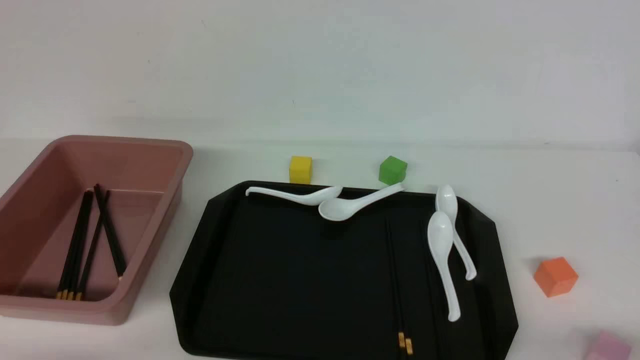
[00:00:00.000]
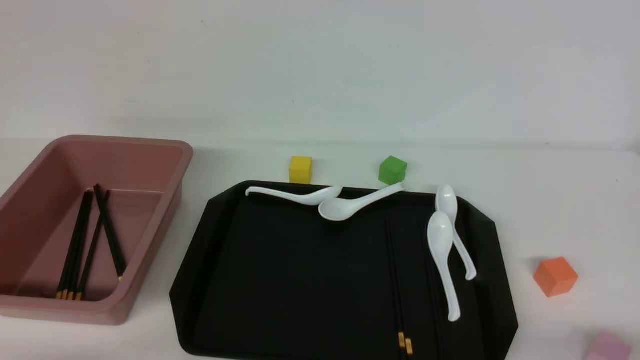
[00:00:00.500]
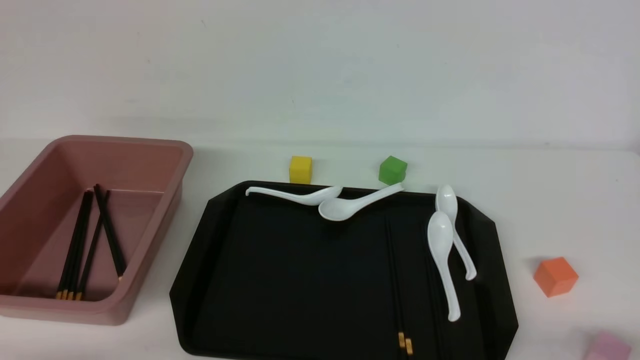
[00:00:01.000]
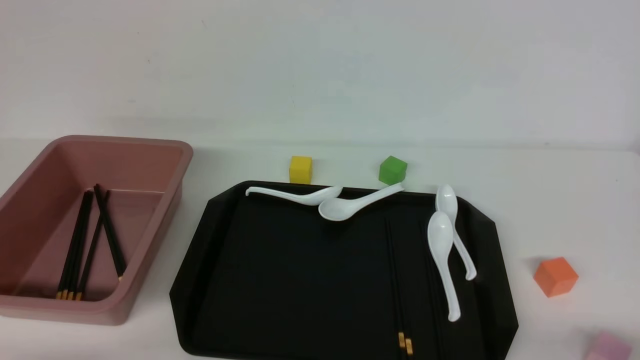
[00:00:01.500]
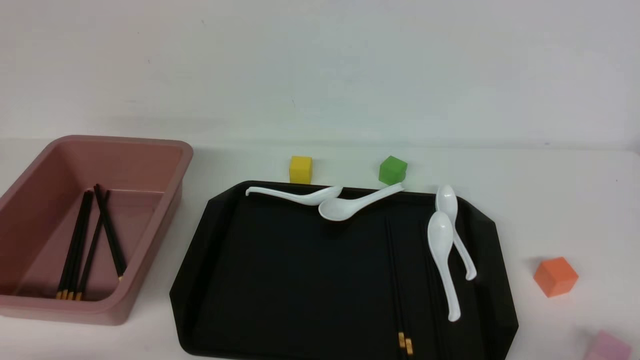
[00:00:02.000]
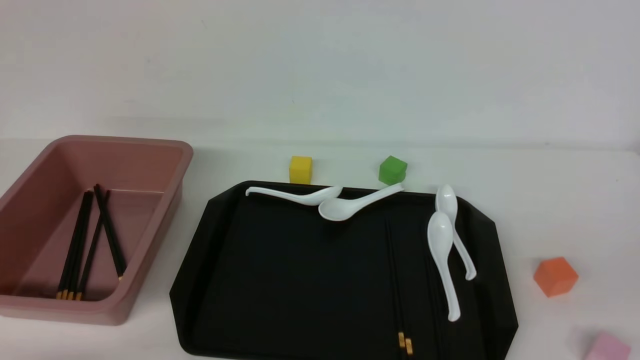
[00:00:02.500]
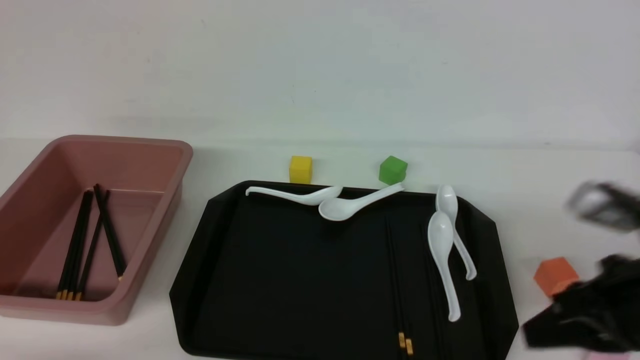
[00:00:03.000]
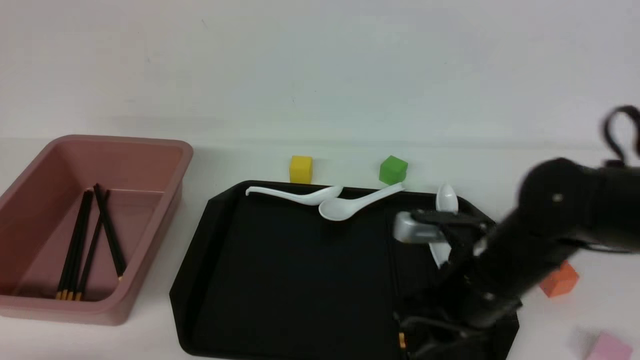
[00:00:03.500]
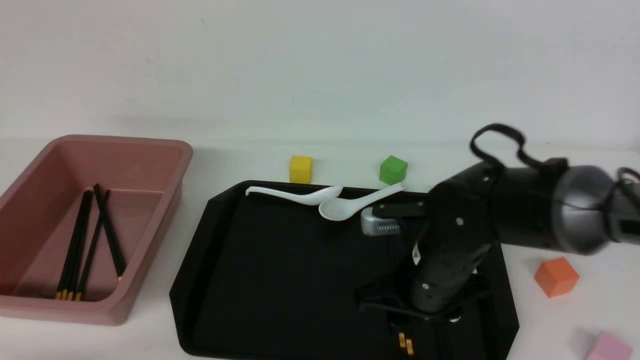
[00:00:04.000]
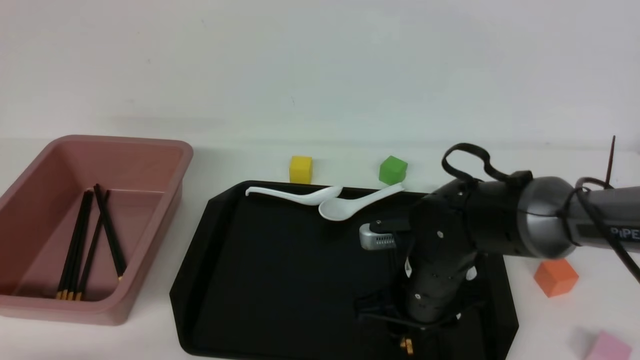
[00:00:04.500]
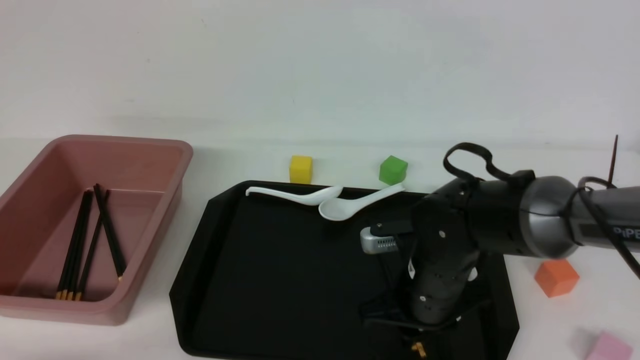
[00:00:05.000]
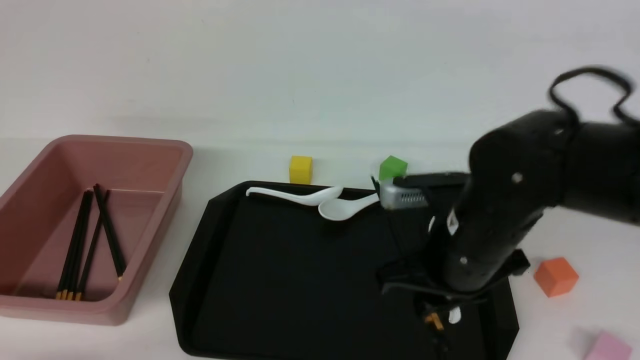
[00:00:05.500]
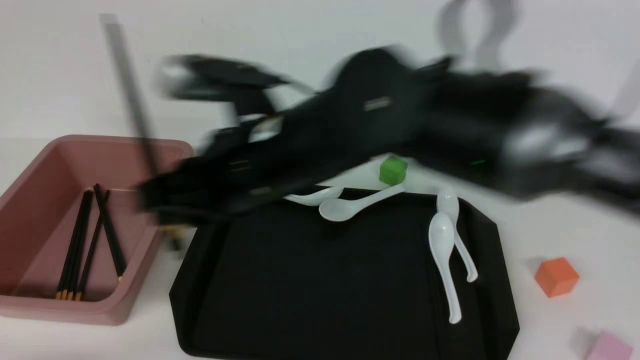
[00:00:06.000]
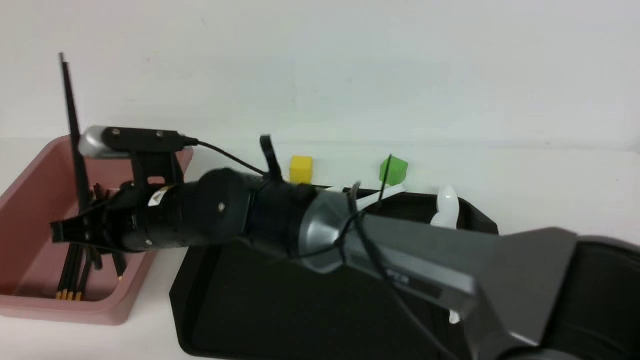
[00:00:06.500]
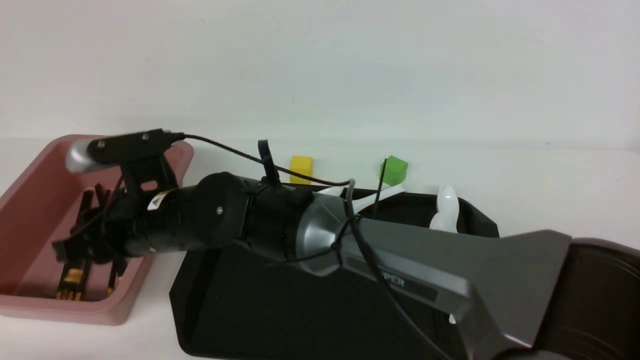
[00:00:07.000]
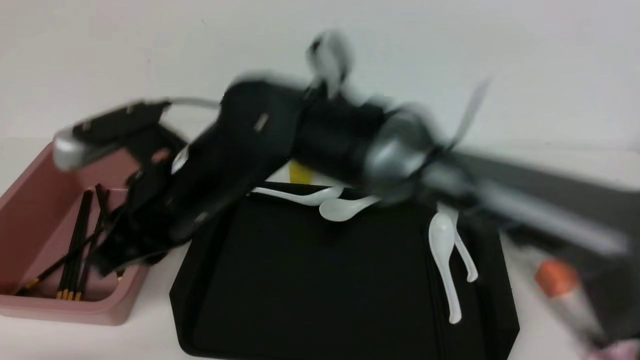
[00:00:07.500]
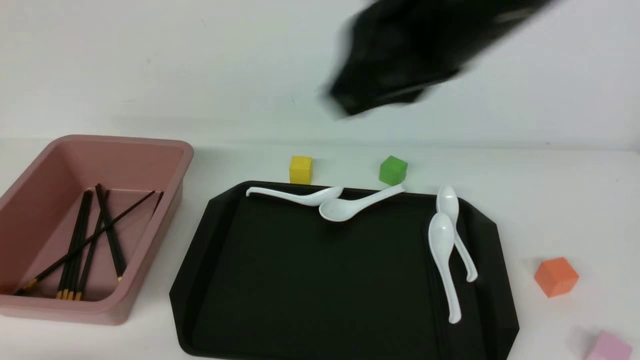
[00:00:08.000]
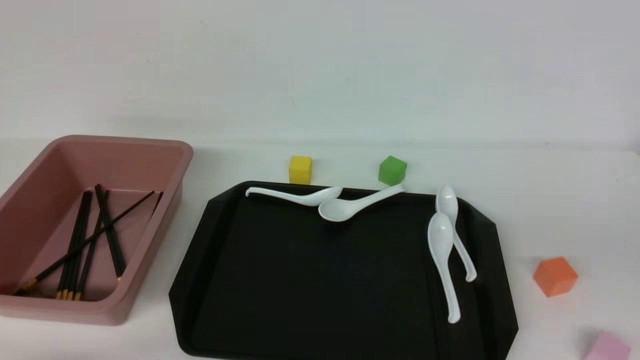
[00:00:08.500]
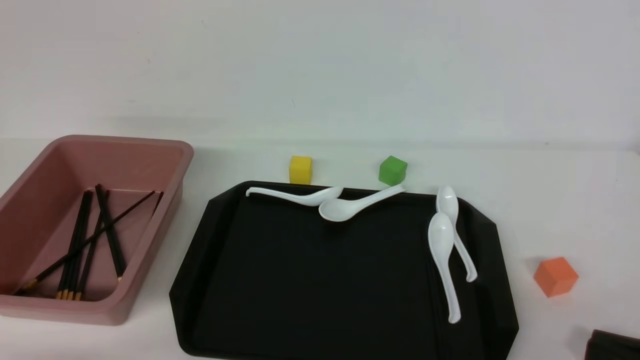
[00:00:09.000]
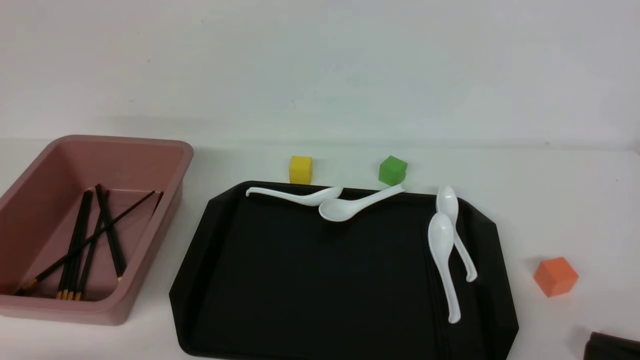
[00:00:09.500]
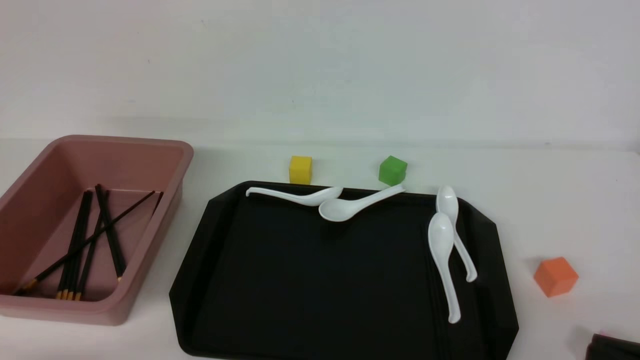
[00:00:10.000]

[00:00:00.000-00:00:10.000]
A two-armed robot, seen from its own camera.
Step, 00:00:00.000 to 00:00:05.500: use the right arm to grab a pair of chopsticks.
Step, 00:00:06.000 to 00:00:07.000: use the right arm to put the chopsticks into the lunch box.
00:00:02.000 to 00:00:04.000: The right gripper goes some 30 cm forward and to the left, and closes and opens again.
00:00:04.000 to 00:00:06.000: The right gripper is displaced to the left and upward by some 20 cm, and closes its fingers.
00:00:06.000 to 00:00:08.000: The right gripper shifts about 25 cm upward, to the right and backward, and closes.
00:00:08.000 to 00:00:10.000: The right gripper is displaced downward, to the right and backward by about 30 cm.

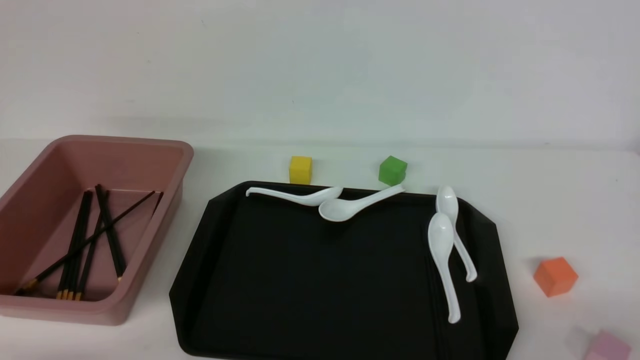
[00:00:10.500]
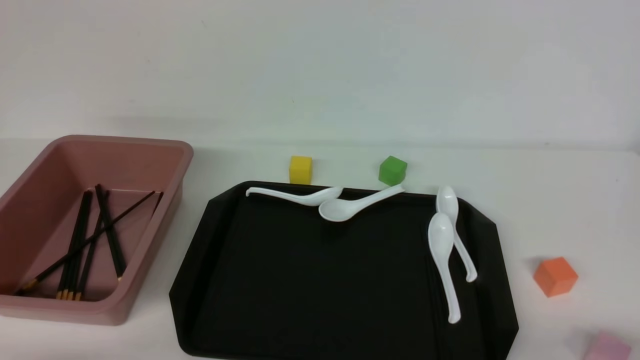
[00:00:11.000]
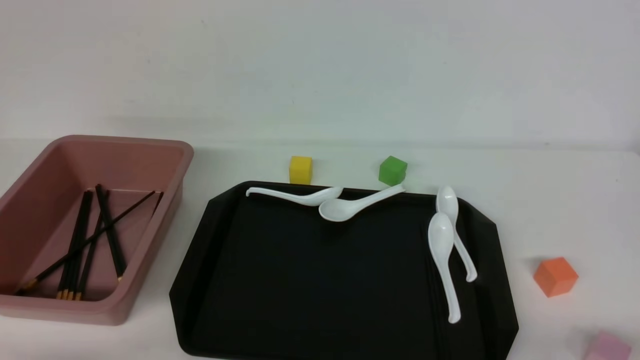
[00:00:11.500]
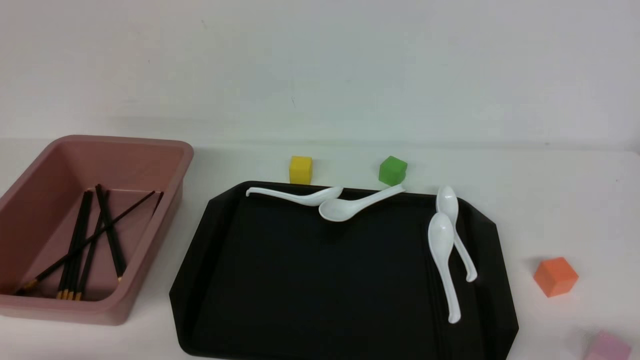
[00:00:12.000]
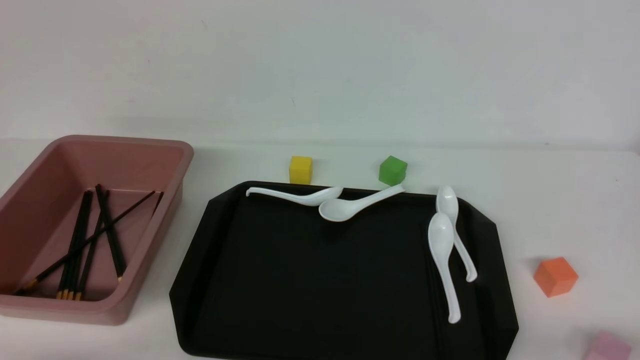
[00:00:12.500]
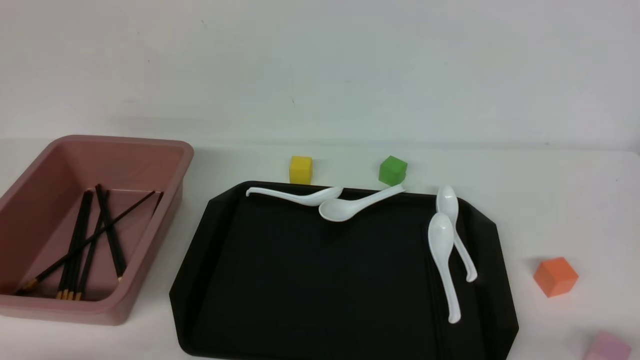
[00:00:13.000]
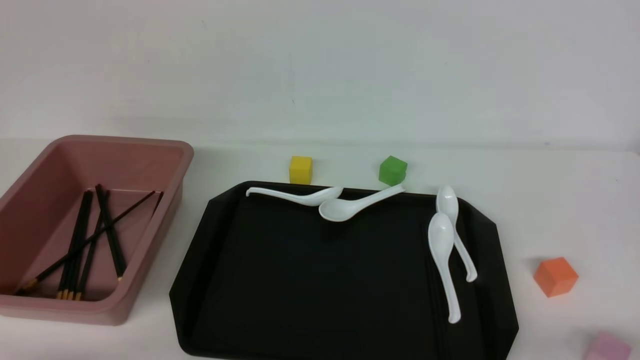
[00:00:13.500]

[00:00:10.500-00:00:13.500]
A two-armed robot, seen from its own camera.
00:00:12.000 to 00:00:13.500: The two grippers keep their place.

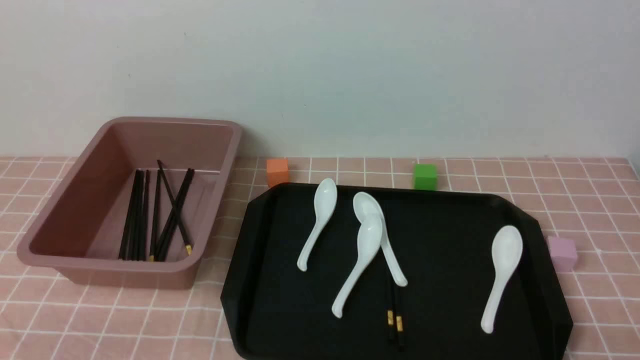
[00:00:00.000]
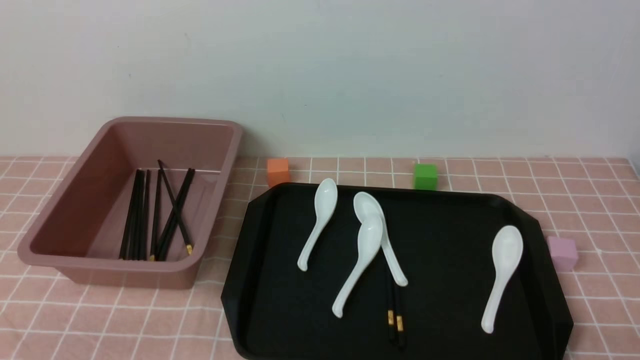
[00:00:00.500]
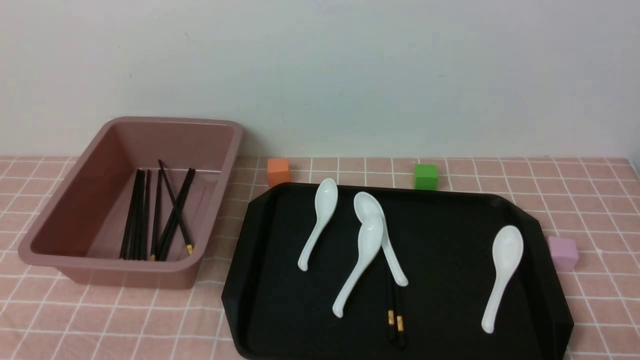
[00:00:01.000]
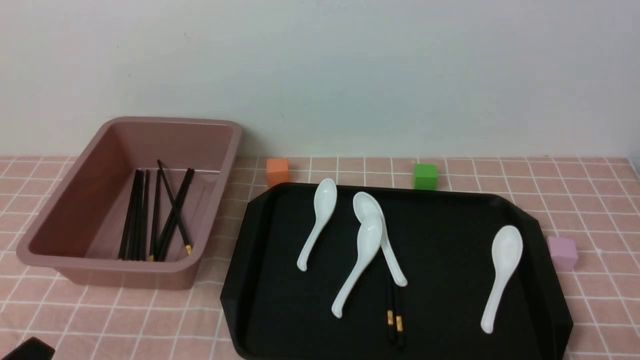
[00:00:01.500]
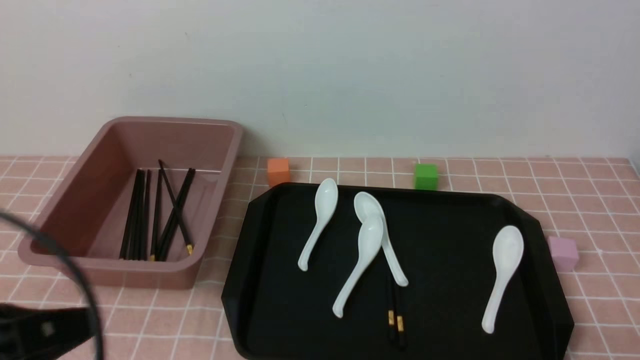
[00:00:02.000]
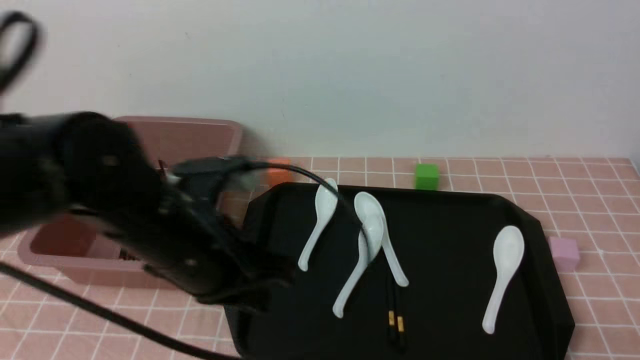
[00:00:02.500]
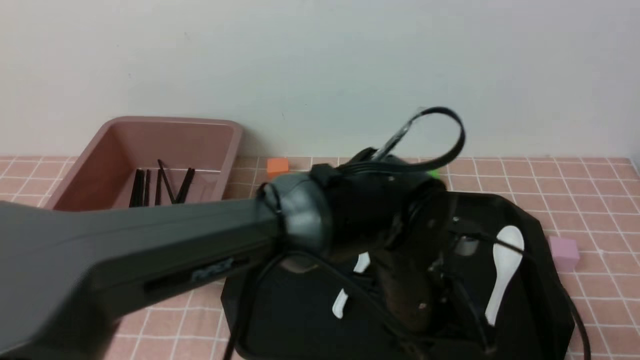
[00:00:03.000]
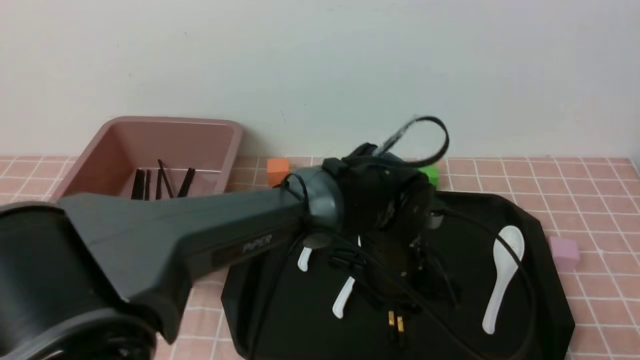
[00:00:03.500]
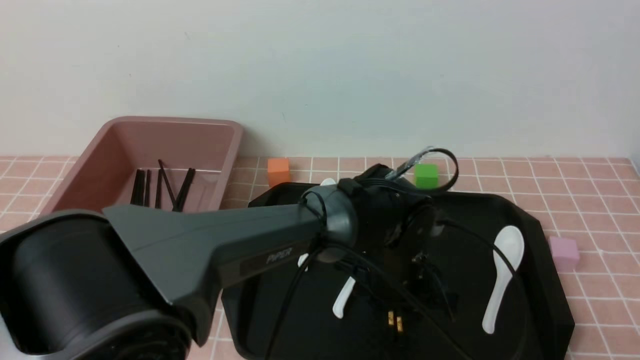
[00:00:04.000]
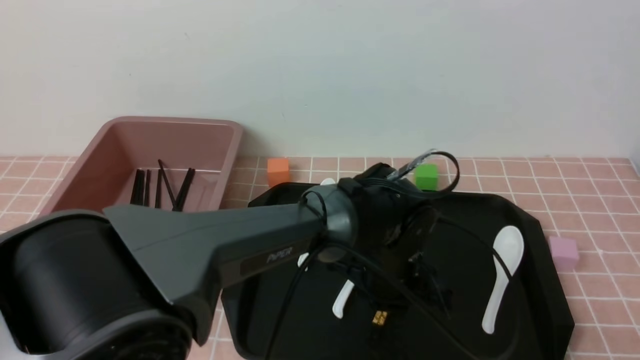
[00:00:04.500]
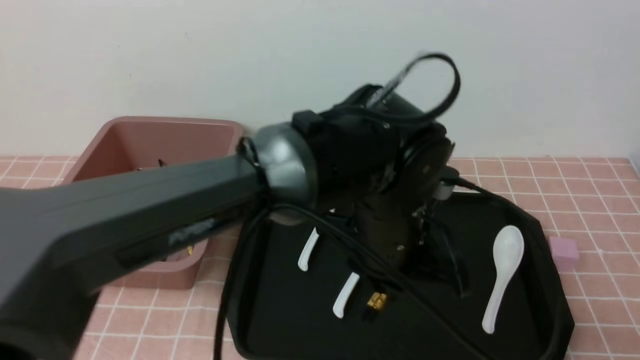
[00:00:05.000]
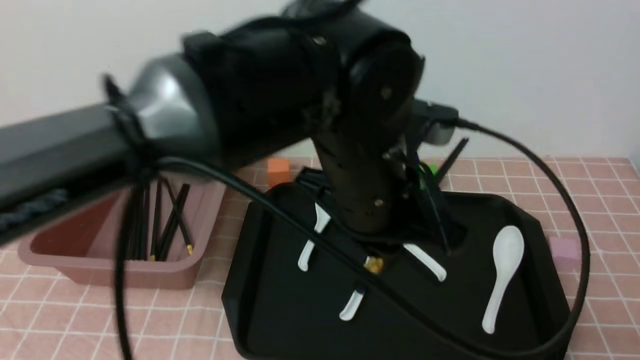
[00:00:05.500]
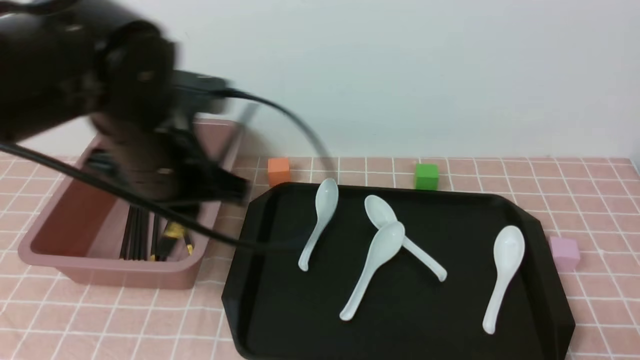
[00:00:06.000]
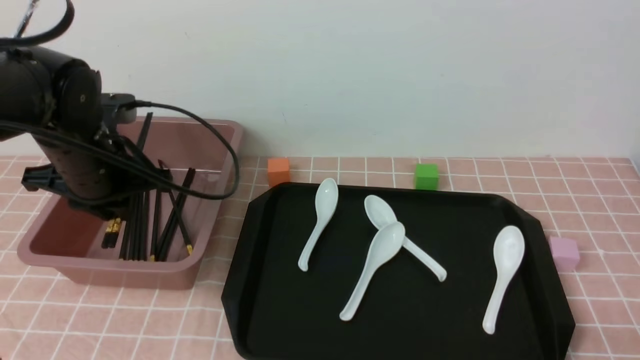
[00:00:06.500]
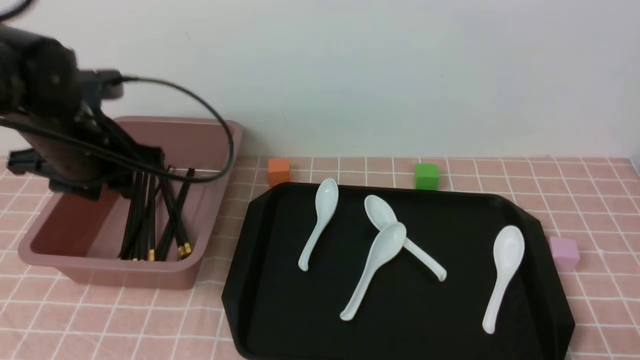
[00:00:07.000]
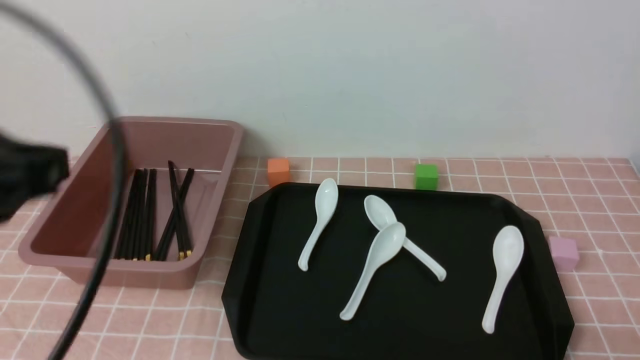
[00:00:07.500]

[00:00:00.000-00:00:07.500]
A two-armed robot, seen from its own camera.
Step, 00:00:00.000 to 00:00:05.000: use the left arm to grab a pair of chopsticks.
Step, 00:00:05.500 to 00:00:07.000: use the left arm to put the chopsticks into the lunch box.
00:00:00.000 to 00:00:02.000: The left gripper goes some 15 cm upward and forward, and closes its fingers.
00:00:02.000 to 00:00:04.000: The left gripper travels to the right, forward and downward by about 40 cm, and opens its fingers.
00:00:04.000 to 00:00:05.500: The left gripper travels upward by some 20 cm, and closes up.
00:00:05.500 to 00:00:07.500: The left gripper heads to the left and backward, covering some 25 cm, and closes up.
